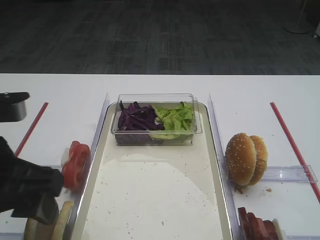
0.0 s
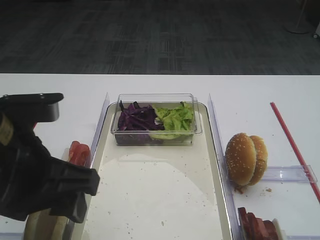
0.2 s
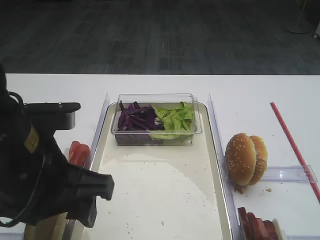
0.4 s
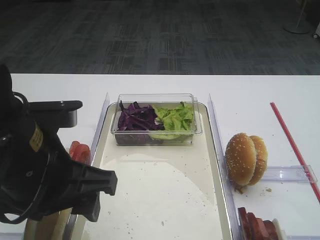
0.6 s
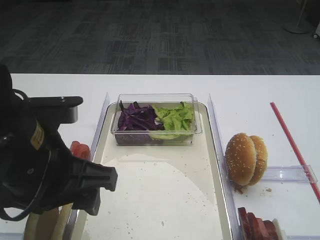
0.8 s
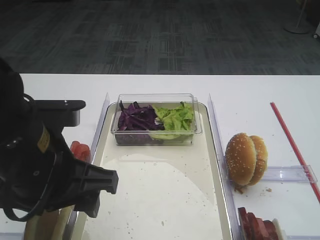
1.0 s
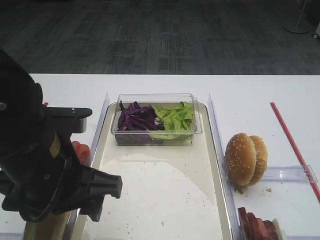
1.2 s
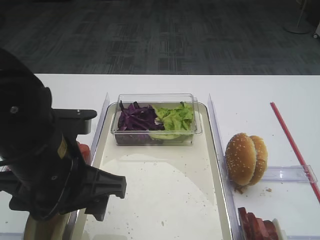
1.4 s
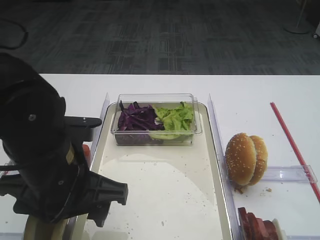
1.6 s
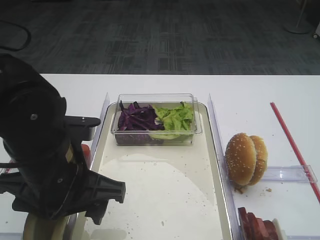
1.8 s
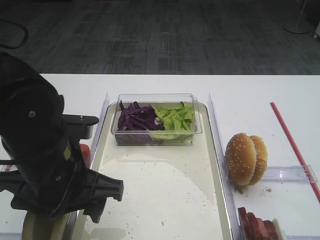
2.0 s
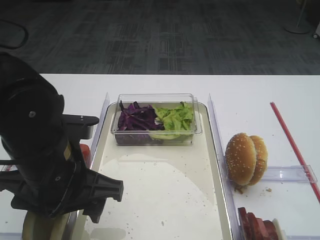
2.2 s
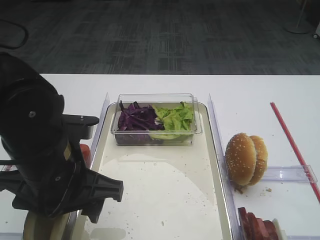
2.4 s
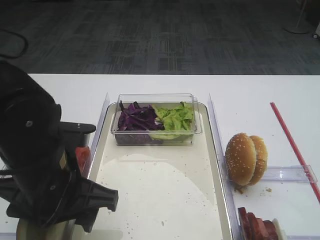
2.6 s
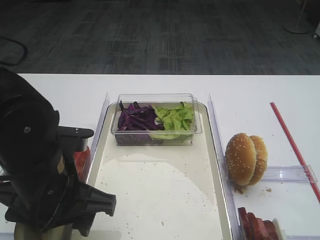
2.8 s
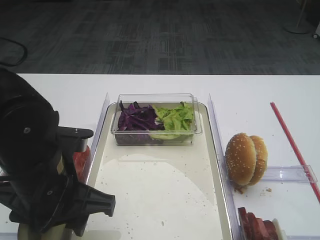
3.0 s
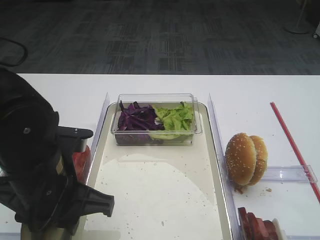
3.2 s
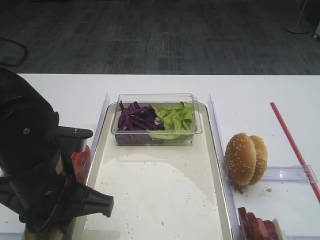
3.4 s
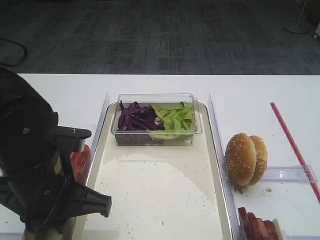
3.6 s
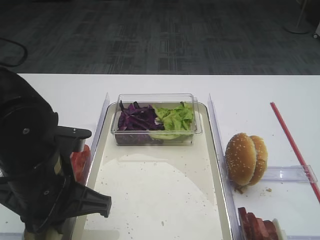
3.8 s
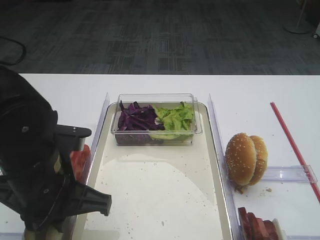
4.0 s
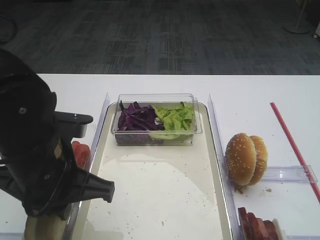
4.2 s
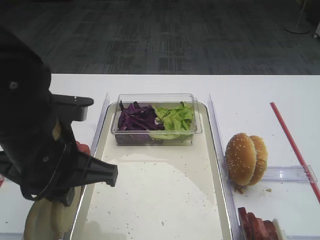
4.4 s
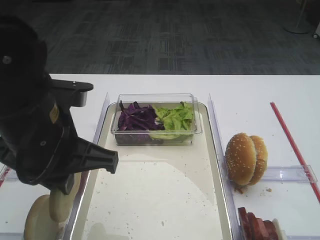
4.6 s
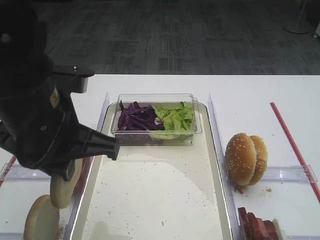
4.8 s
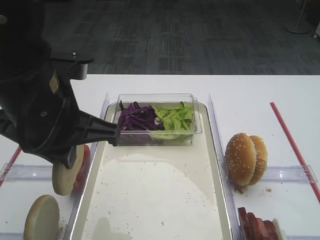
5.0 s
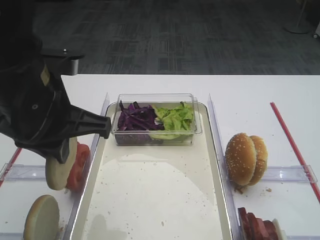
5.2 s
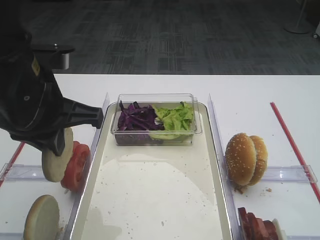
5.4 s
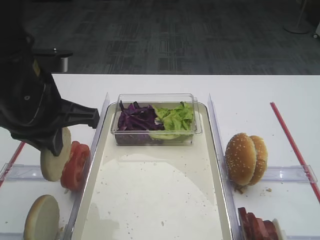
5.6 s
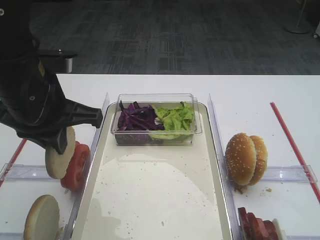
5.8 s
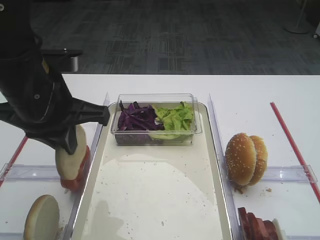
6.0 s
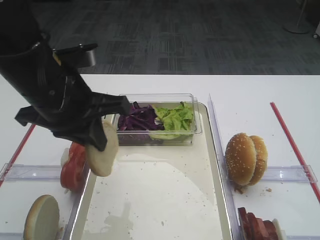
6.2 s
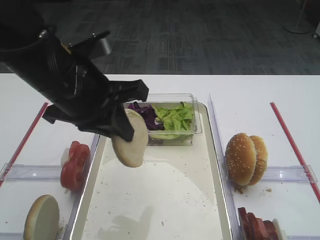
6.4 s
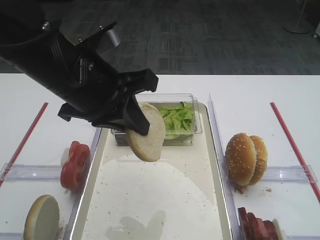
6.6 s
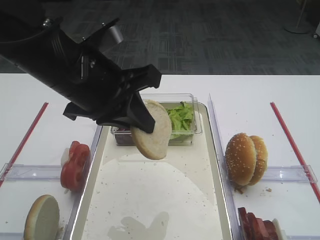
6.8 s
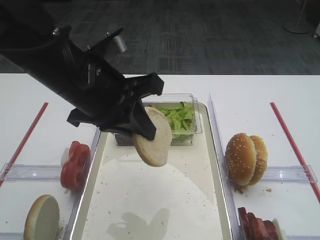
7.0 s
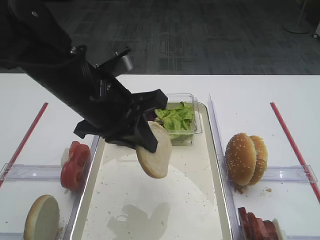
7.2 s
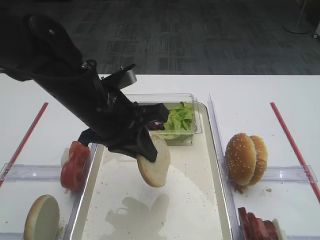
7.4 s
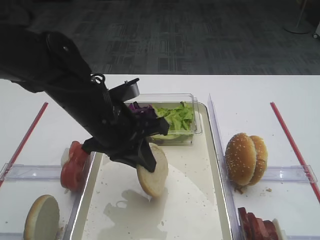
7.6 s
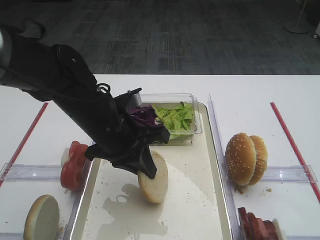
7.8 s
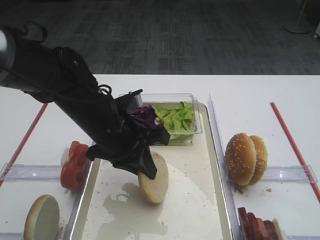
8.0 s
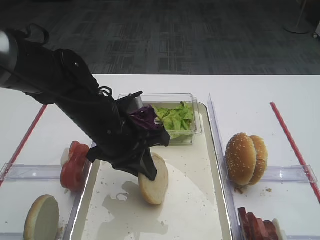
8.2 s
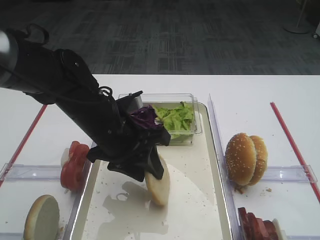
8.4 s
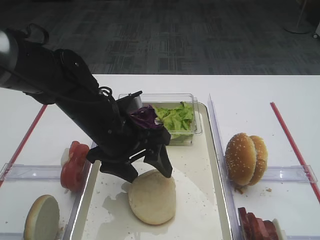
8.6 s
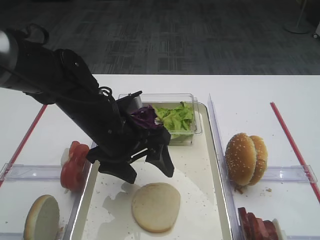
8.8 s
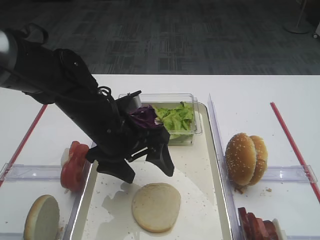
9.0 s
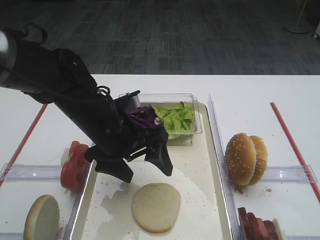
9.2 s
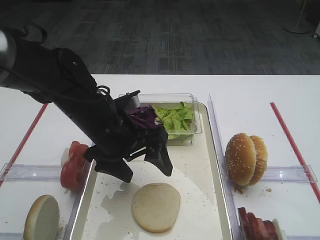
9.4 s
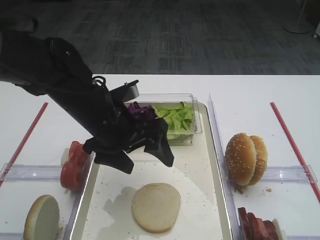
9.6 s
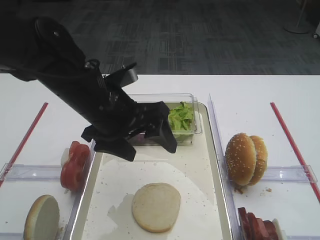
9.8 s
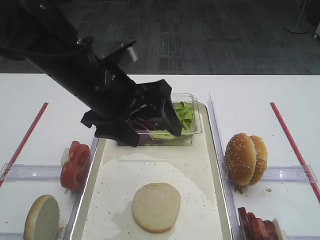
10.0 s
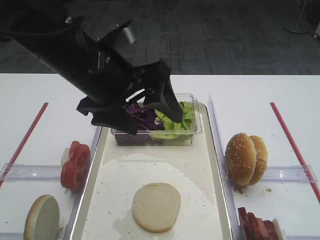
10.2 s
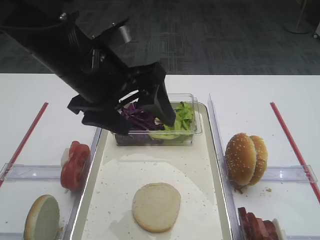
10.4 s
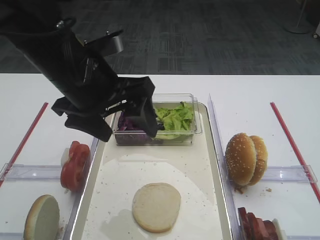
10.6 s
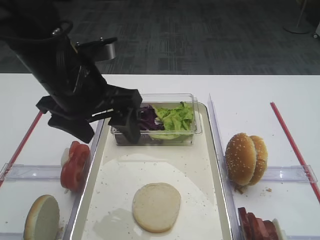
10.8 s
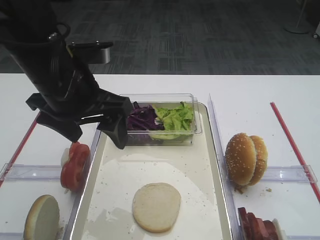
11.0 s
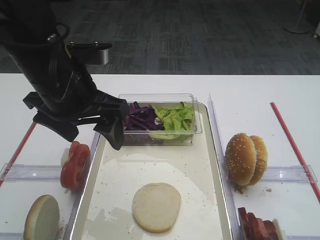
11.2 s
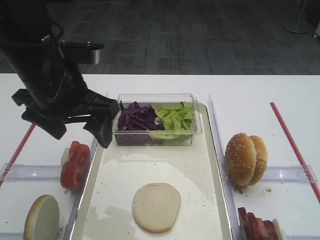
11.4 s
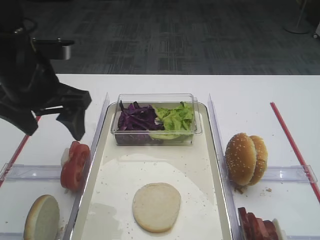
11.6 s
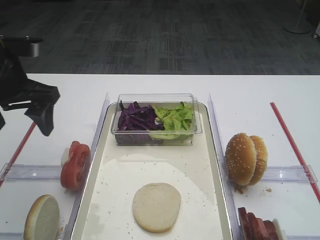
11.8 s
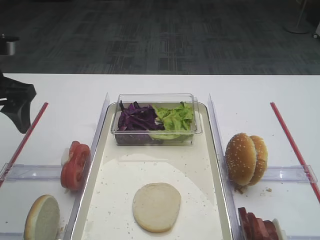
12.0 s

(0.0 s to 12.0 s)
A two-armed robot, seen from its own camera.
Step, 0.0 s - 4.2 s: Pick up the bread slice with the left gripper.
Step, 4.6 s - 9.0 s: Place the bread slice on the tray with the left gripper.
0.0 s - 1.6 s: The left gripper is displaced downward and to the right by about 10 cm.
1.6 s - 3.0 s: There are only small adjustments of the grippers.
3.0 s - 4.4 s: The left gripper closes.
4.4 s - 6.0 s: The left gripper travels forward by about 5 cm.
6.0 s - 7.6 s: The left gripper moves downward and to the right, approximately 10 cm.
7.6 s - 9.0 s: The left gripper opens its fingers.
9.0 s - 10.4 s: The left gripper travels upward by some 10 cm.
10.4 s - 12.0 s: The left gripper heads to the left, covering about 15 cm.

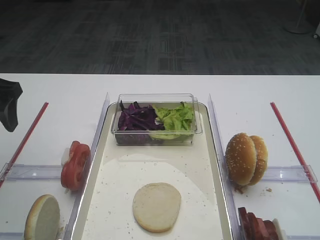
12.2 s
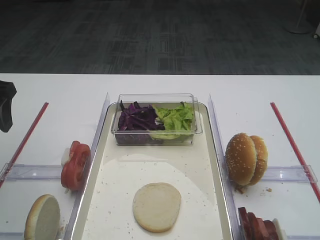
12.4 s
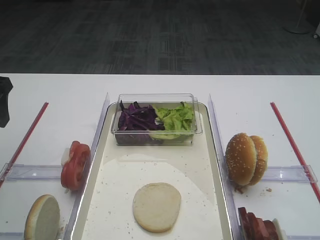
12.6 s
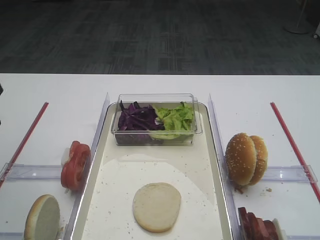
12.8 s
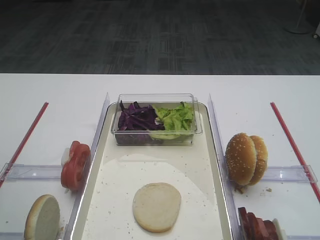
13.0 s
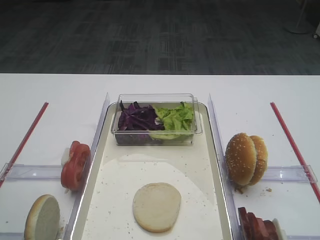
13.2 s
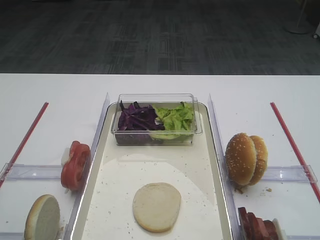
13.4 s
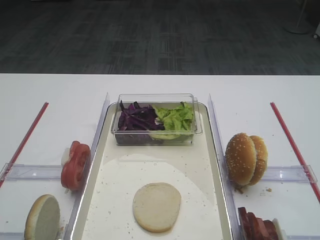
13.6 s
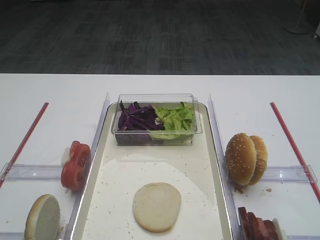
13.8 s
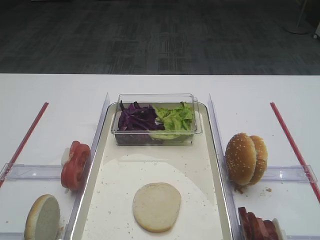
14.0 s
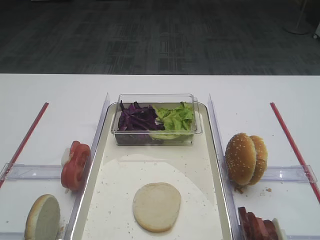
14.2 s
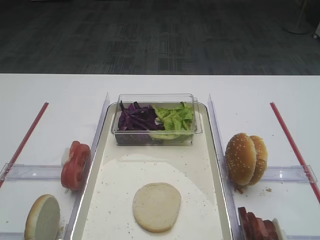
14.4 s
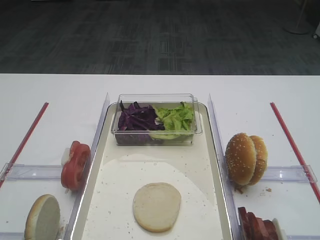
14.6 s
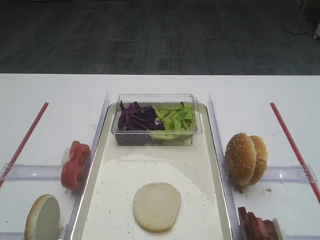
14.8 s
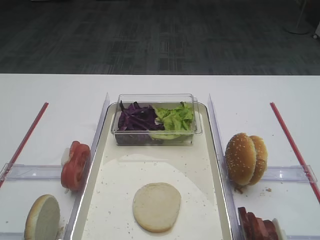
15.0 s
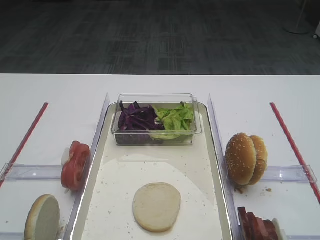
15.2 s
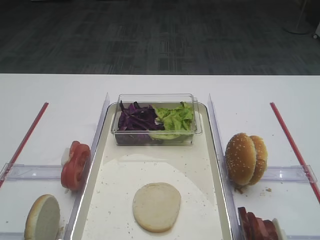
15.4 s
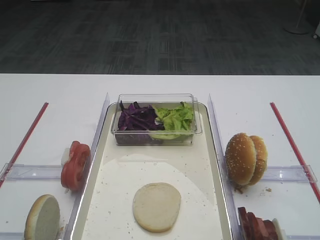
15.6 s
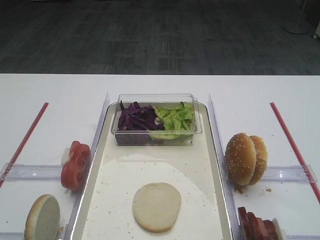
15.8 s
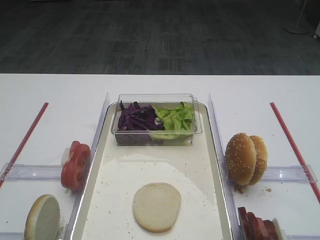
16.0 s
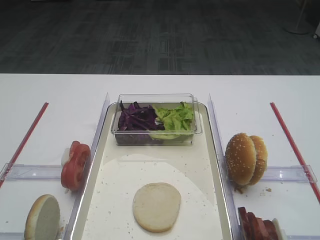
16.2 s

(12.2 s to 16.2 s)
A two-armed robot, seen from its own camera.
12.2 s - 13.6 s: The left gripper is displaced backward by approximately 20 cm.
14.8 s - 16.2 s: The two grippers keep their place.
